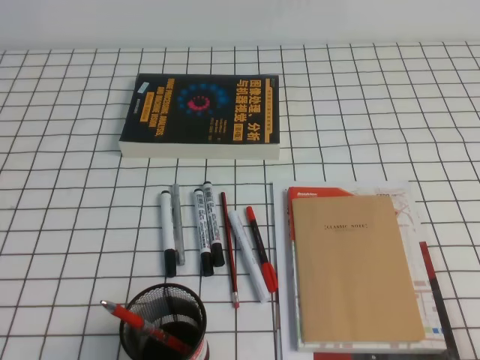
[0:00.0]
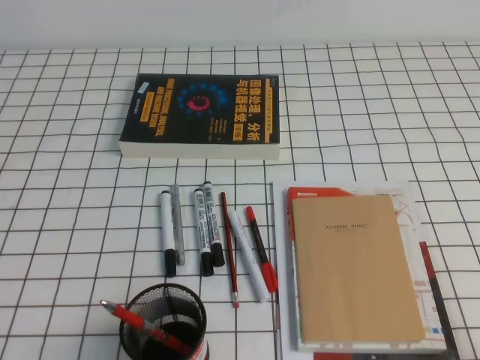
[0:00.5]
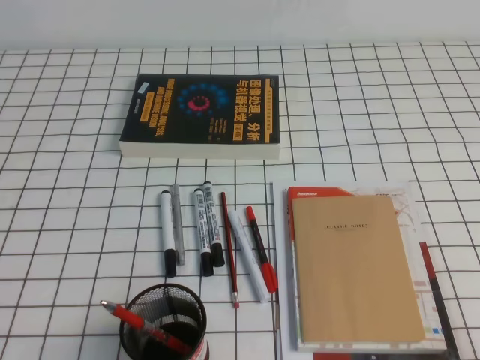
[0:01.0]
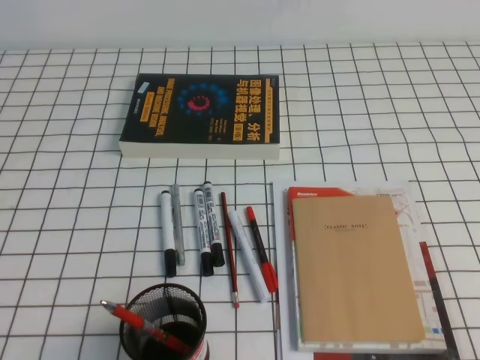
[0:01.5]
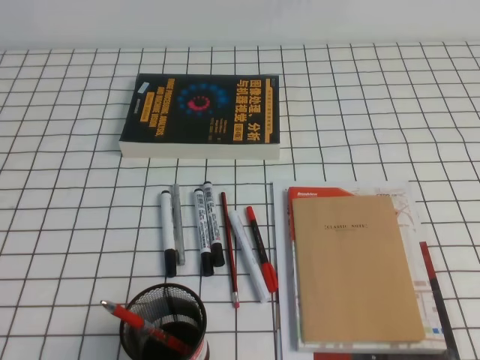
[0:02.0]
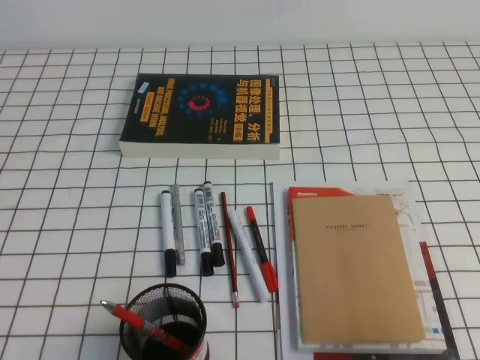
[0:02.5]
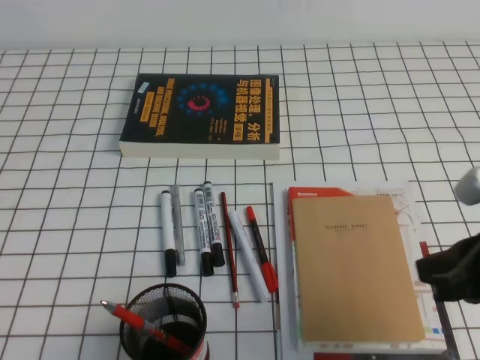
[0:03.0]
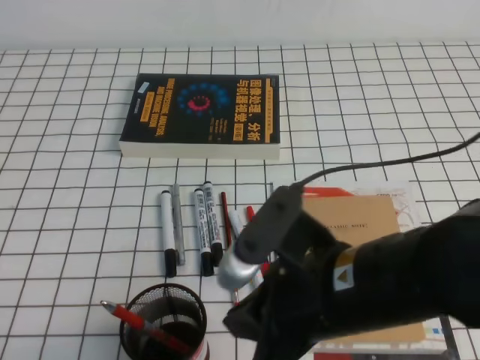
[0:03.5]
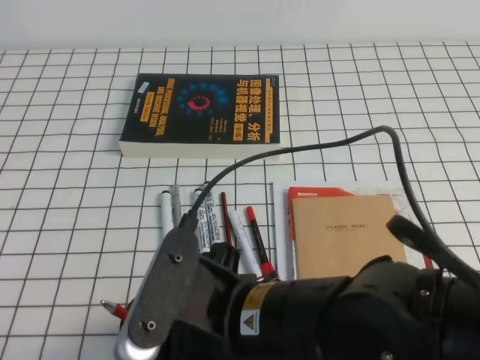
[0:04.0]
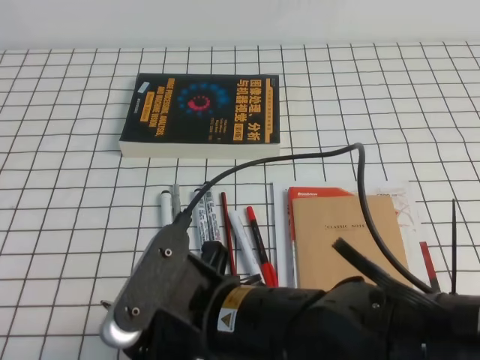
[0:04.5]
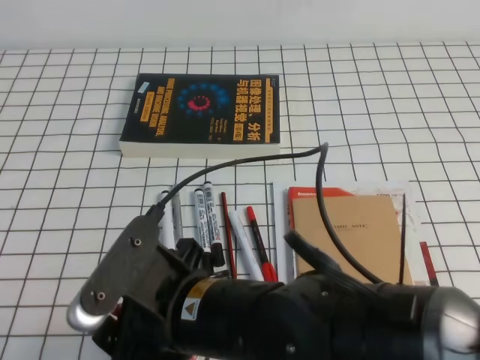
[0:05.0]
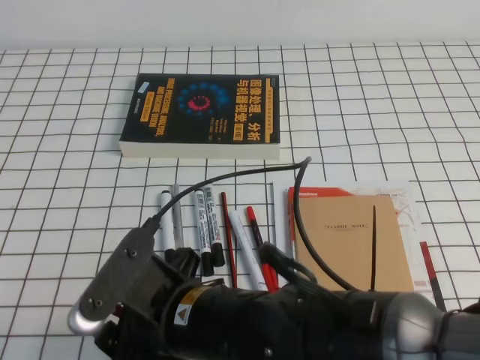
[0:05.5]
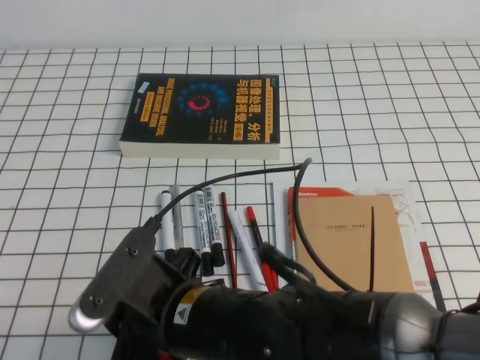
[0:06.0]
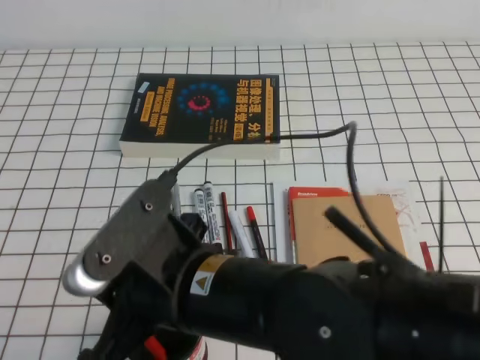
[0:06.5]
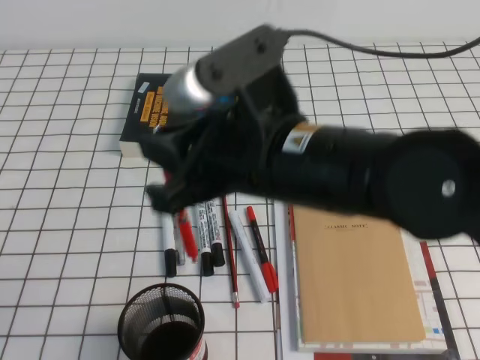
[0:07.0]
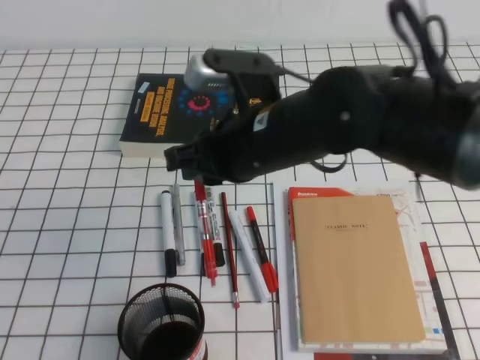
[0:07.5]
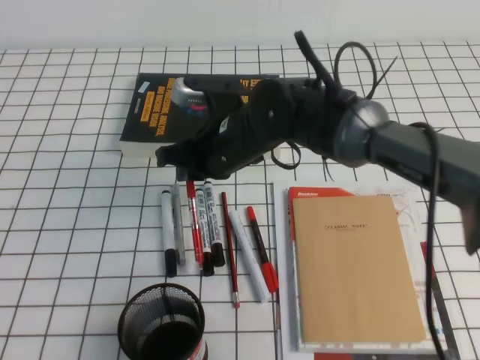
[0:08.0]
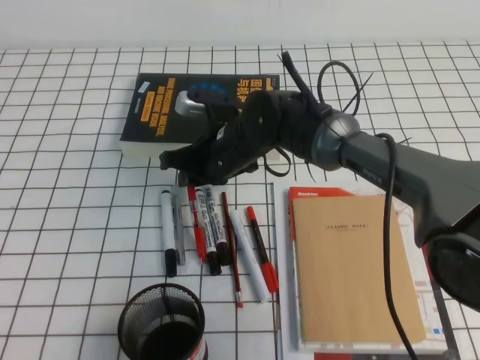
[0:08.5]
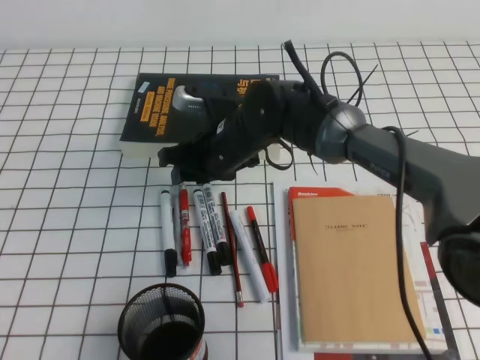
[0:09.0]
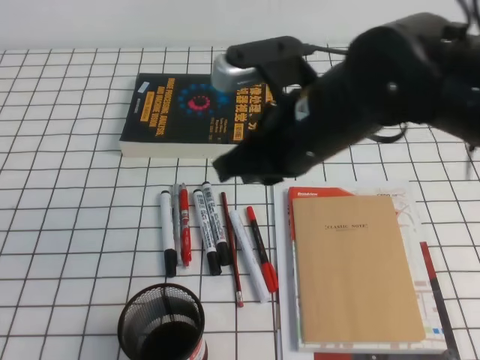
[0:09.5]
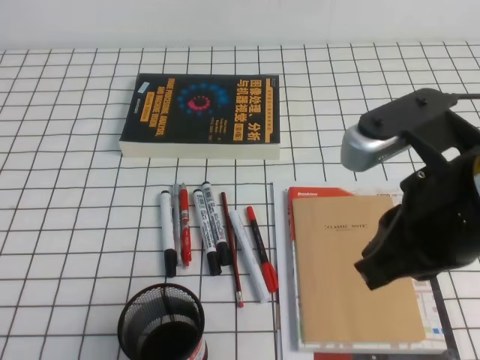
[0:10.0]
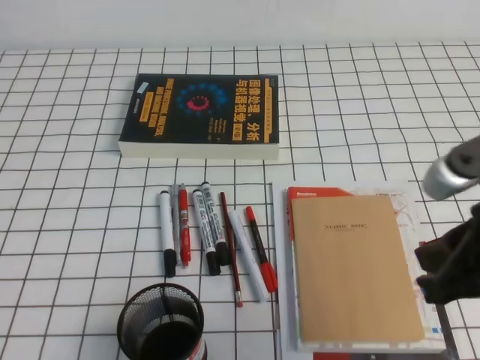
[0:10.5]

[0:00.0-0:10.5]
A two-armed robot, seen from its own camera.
0:02.0 to 0:04.0: The right gripper moves to the left, approximately 30 cm, and opens its fingers.
0:04.0 to 0:06.5: The right gripper closes.
0:06.5 to 0:08.5: The right gripper is displaced forward by approximately 25 cm.
0:08.5 to 0:10.5: The right gripper travels backward, to the right and upward by approximately 35 cm, and opens, then closes once more.

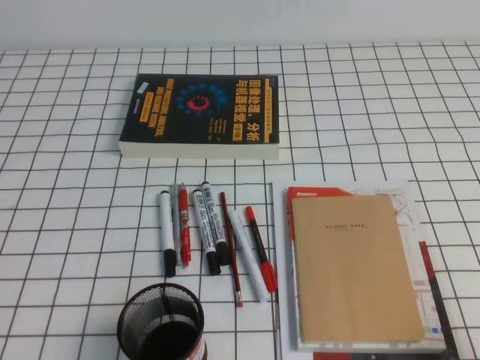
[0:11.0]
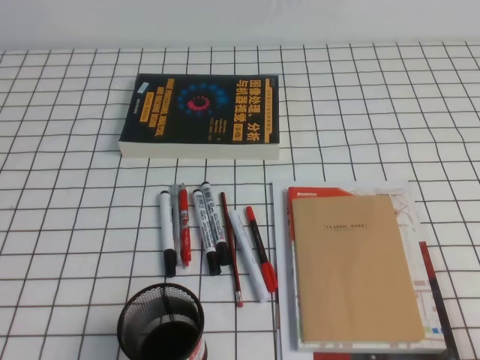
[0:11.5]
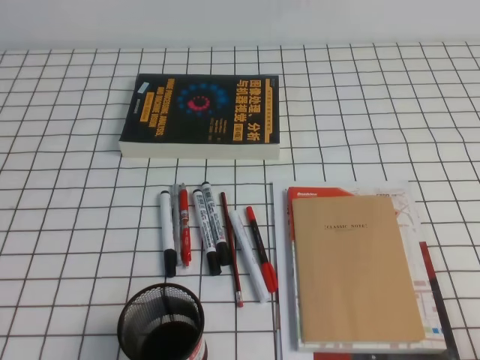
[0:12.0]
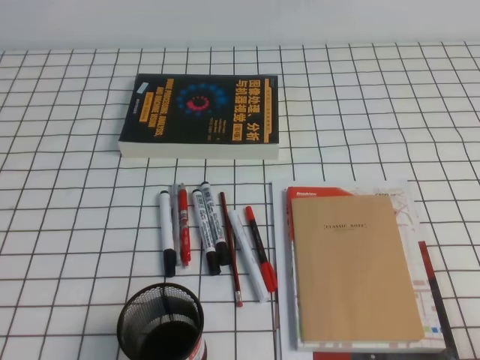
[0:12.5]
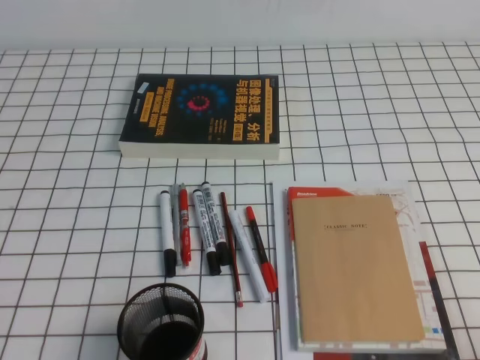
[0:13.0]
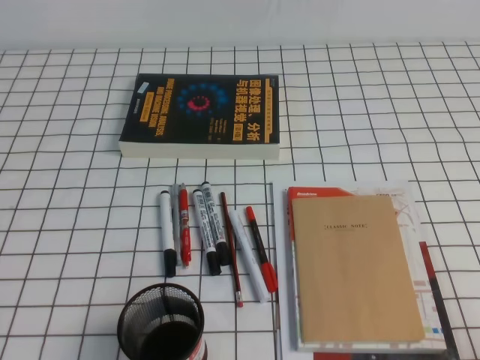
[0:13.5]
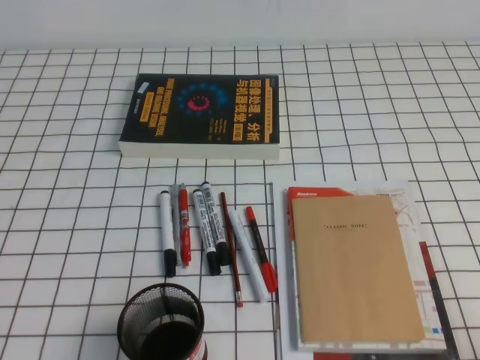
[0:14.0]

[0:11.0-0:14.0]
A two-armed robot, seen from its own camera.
0:12.5 to 0:14.0: Neither gripper changes place.

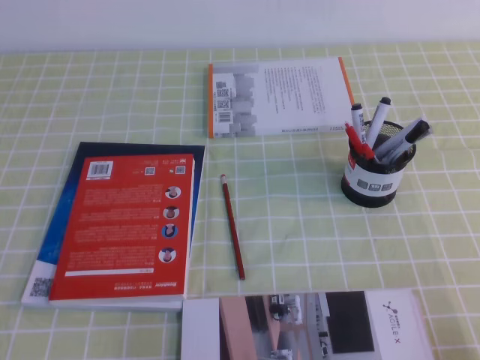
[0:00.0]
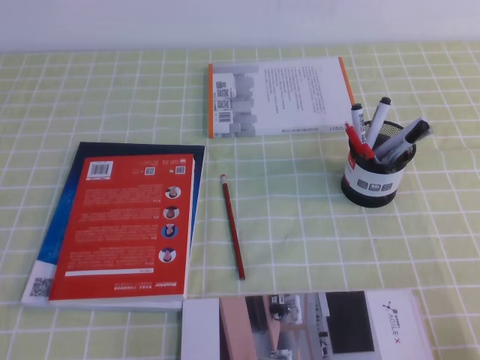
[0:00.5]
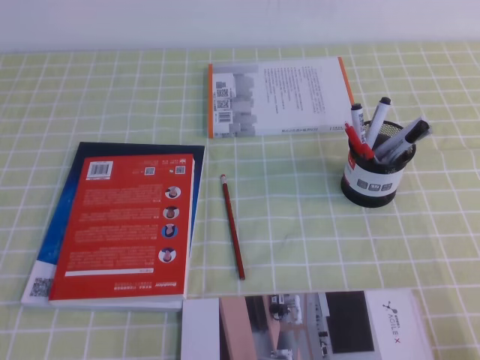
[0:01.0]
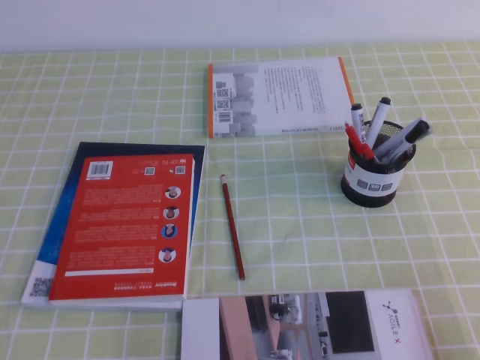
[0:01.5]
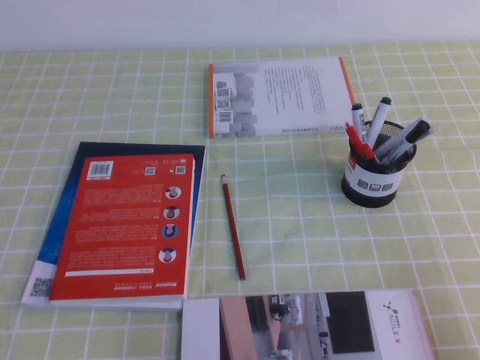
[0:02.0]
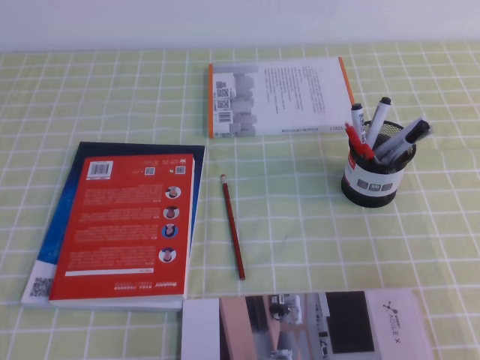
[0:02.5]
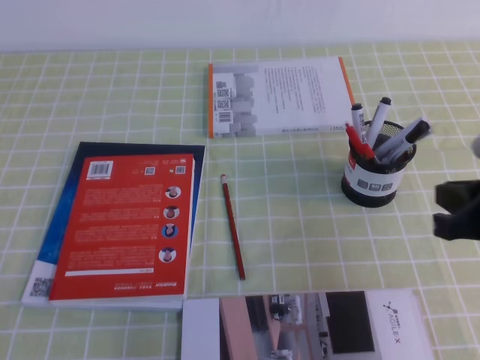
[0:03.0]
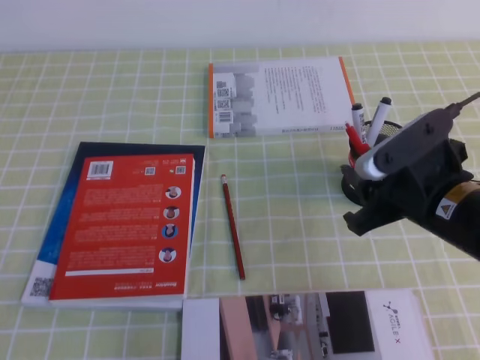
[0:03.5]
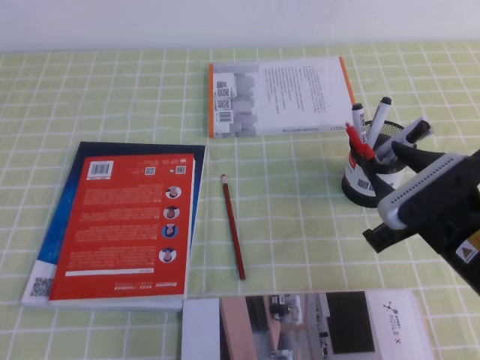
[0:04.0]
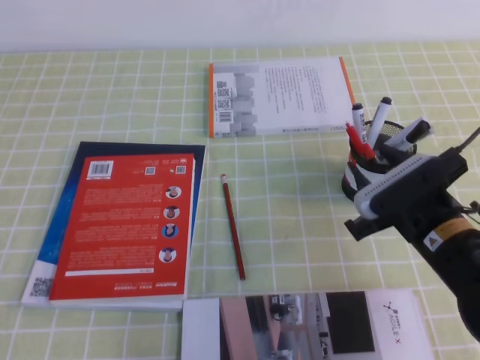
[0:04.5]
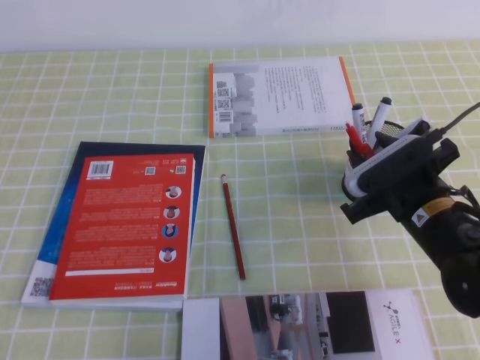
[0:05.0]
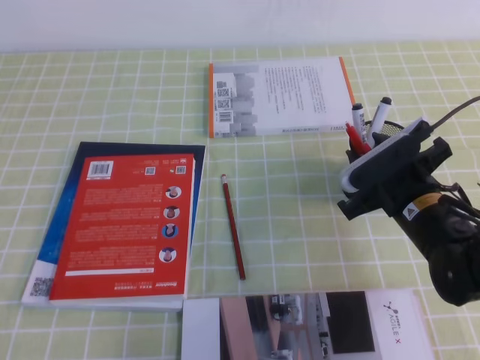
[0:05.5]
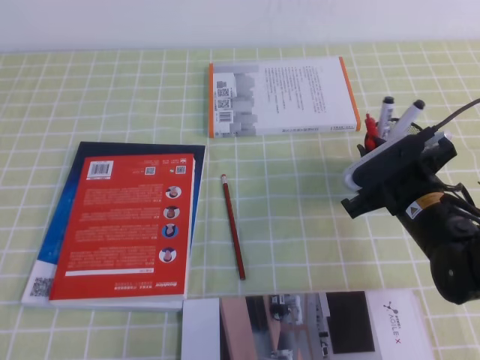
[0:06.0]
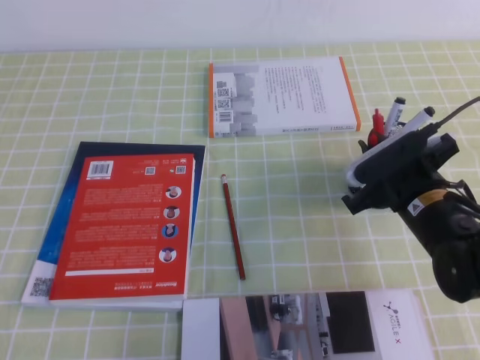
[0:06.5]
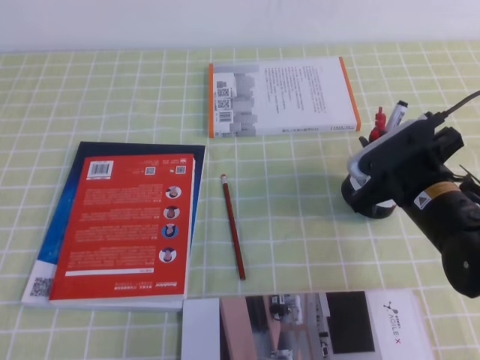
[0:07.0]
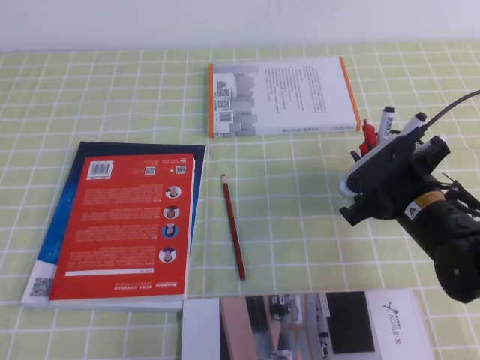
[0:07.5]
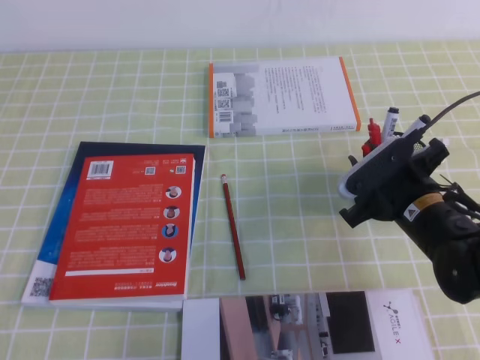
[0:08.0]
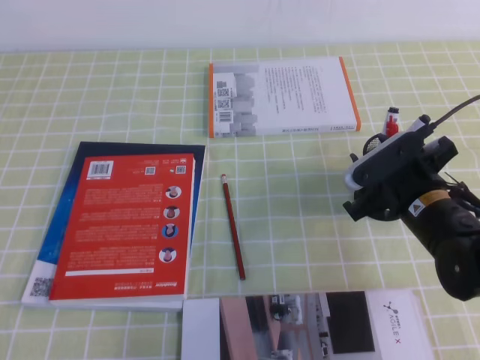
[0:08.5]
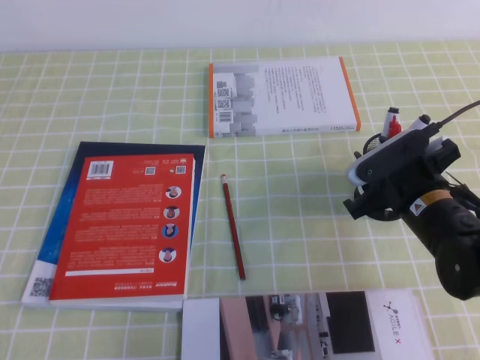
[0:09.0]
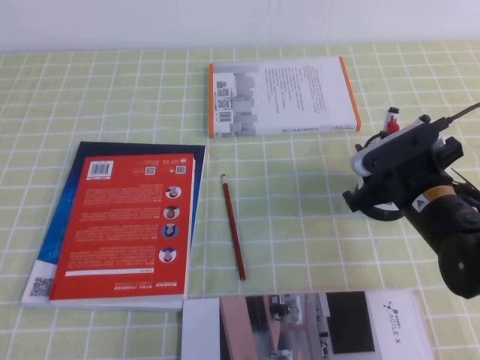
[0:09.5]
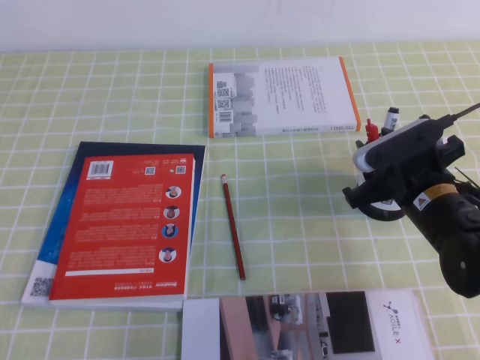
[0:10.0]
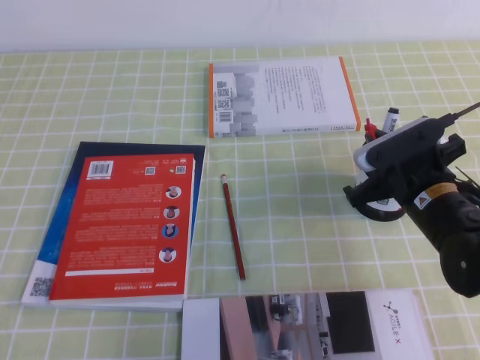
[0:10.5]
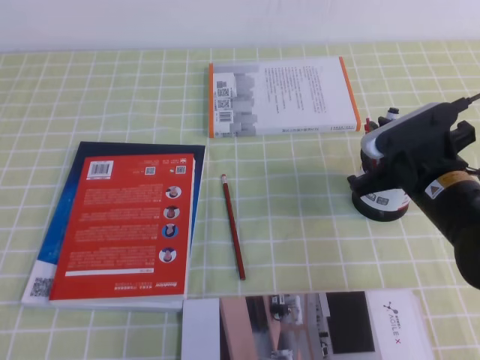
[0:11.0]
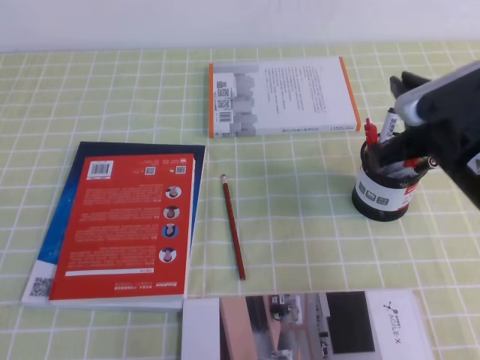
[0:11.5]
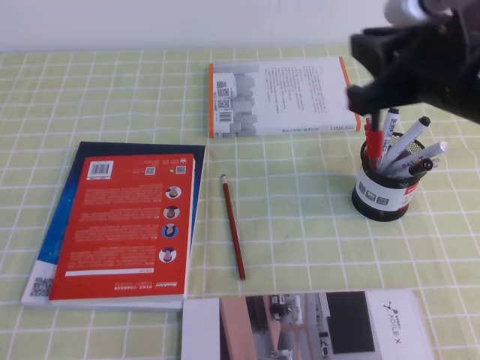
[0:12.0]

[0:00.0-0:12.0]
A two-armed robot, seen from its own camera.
0:02.0 to 0:04.0: The right gripper heads forward and to the left, covering approximately 20 cm, and opens up.
0:04.0 to 0:06.0: The right gripper shifts about 10 cm forward, and closes.
0:06.0 to 0:10.0: The grippers stay close to where they were, moving slightly.
0:10.0 to 0:12.0: The right gripper heads upward, covering about 20 cm, and closes up.
